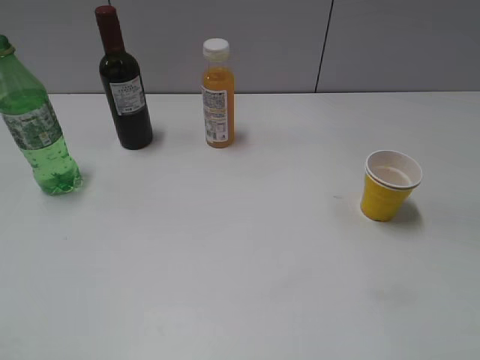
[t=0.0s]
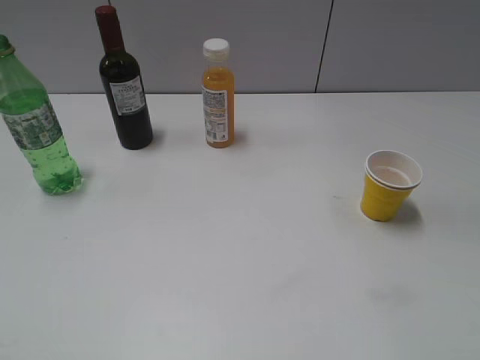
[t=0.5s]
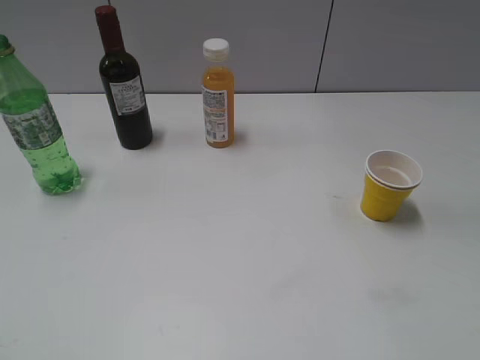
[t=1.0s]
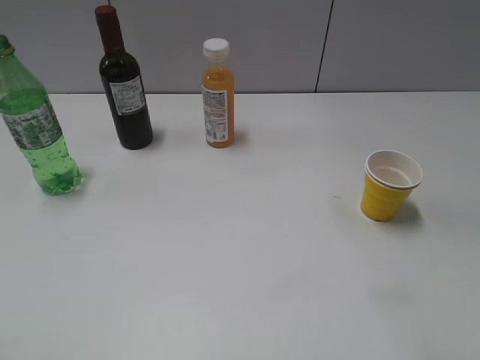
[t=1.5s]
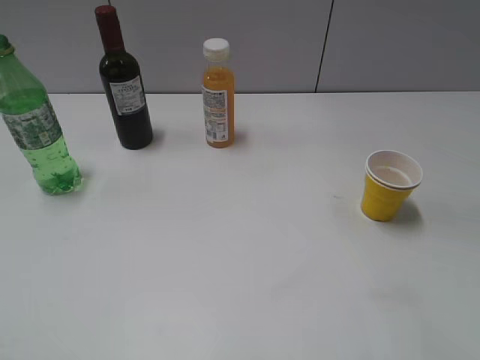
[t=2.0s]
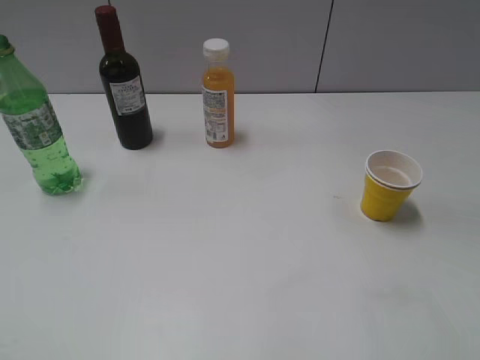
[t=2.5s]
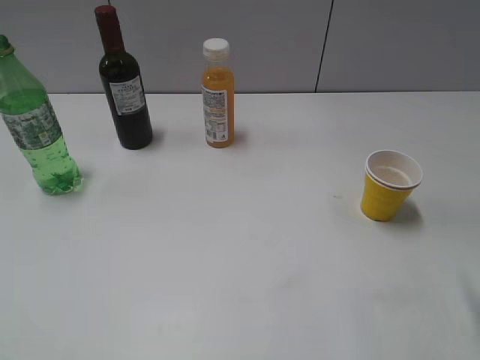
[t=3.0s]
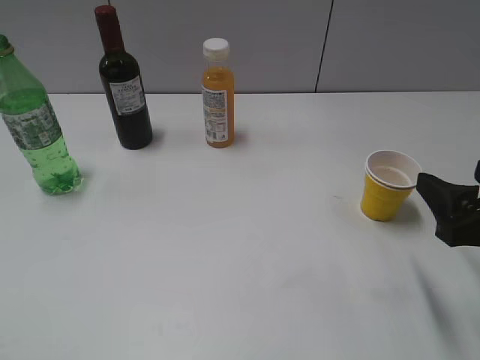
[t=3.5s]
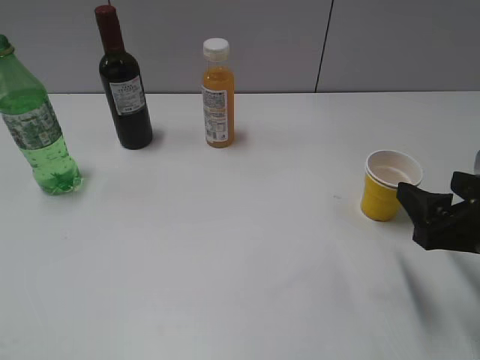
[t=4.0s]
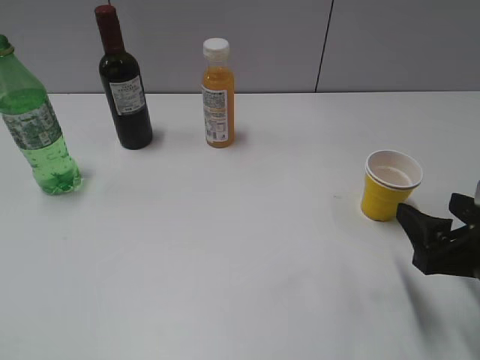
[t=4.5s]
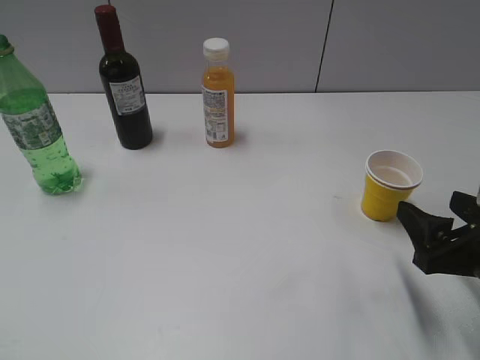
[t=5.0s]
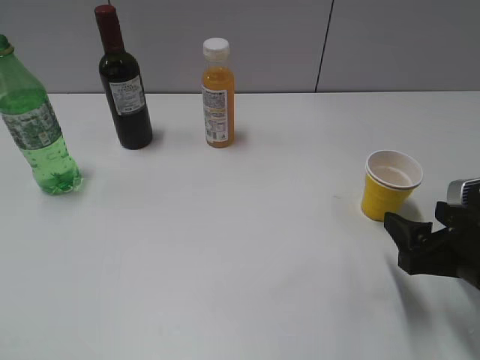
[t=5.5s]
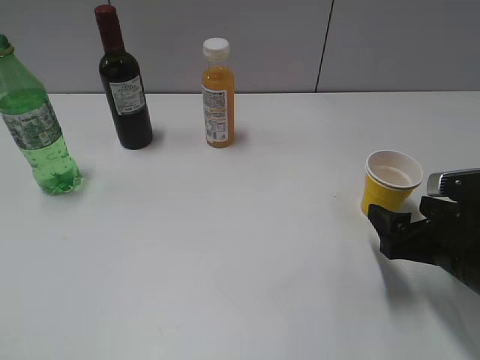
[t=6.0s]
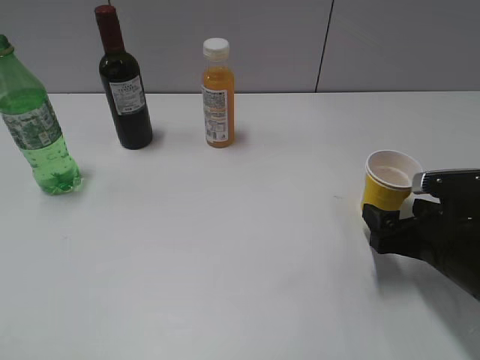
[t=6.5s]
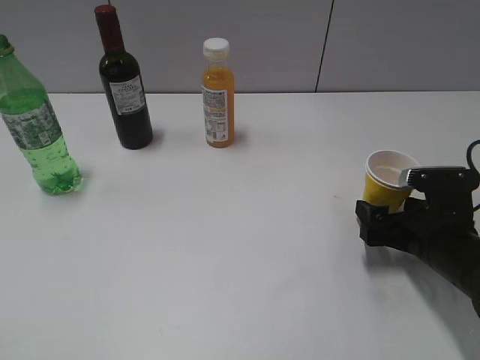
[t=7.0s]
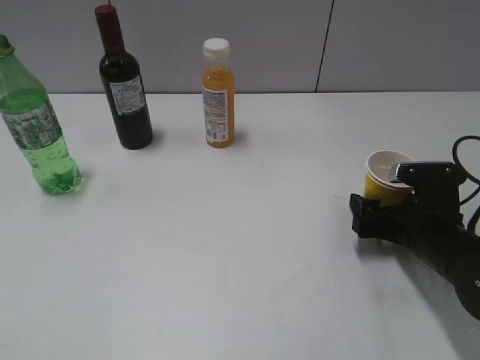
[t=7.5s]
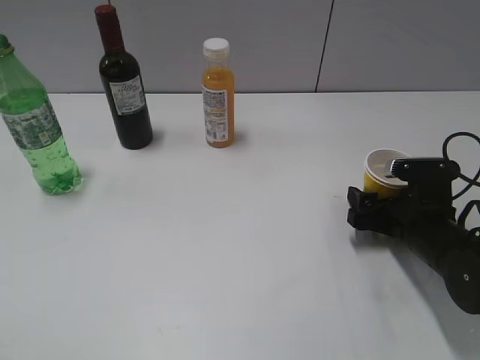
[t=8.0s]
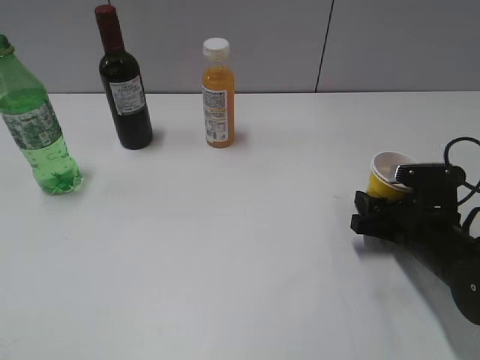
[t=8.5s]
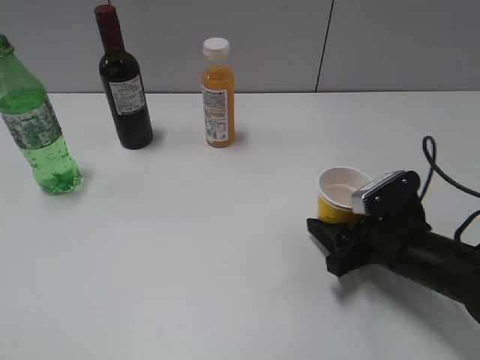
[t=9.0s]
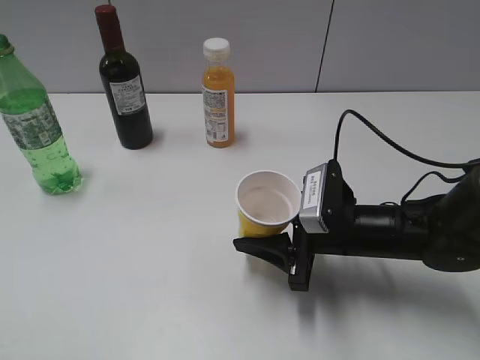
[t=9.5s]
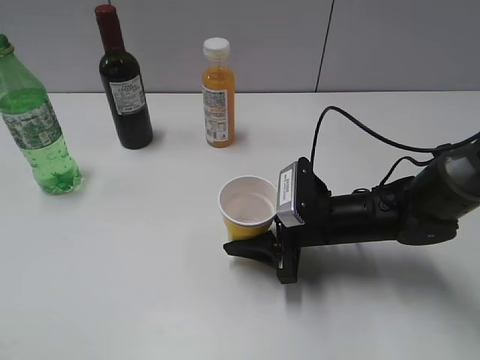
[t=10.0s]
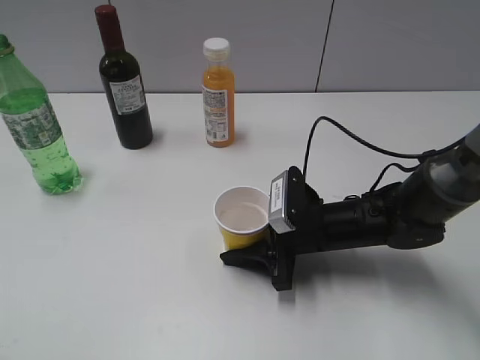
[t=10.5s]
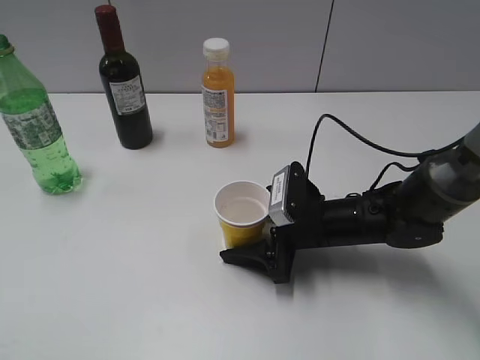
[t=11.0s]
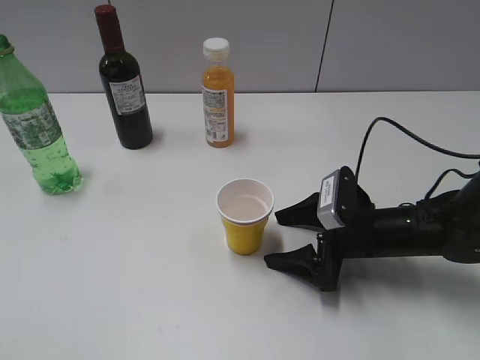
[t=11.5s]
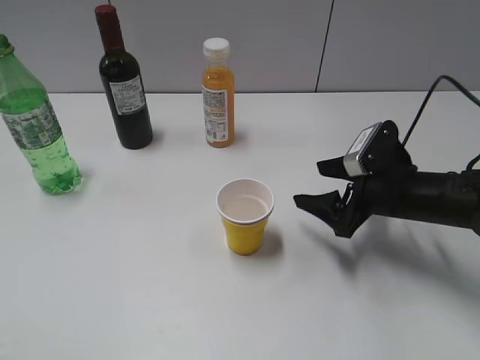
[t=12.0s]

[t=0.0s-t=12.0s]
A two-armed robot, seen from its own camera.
Step, t=1.0s to t=8.0s: Grasp the yellow paper cup with right gripper.
Step, t=8.5s to t=11.0s: Place the yellow paper cup on the table with right gripper.
t=2.0s to t=4.0s: The right gripper heads downward and forward, covering about 15 cm.
t=4.0s to t=6.0s: The right gripper shifts some 5 cm downward.
t=6.0s to t=8.0s: The right gripper heads forward and downward, covering about 10 cm.
t=8.0s to t=10.0s: The right gripper goes approximately 10 cm to the left, and closes up.
t=10.0s to t=12.0s: The right gripper is displaced to the right by approximately 10 cm, and opens.

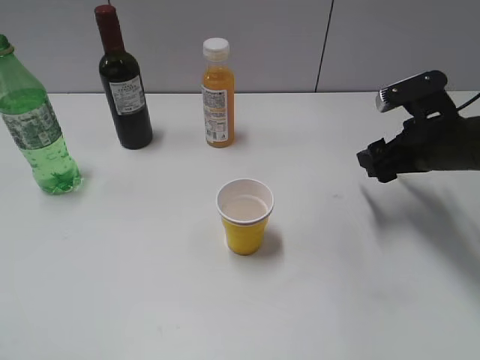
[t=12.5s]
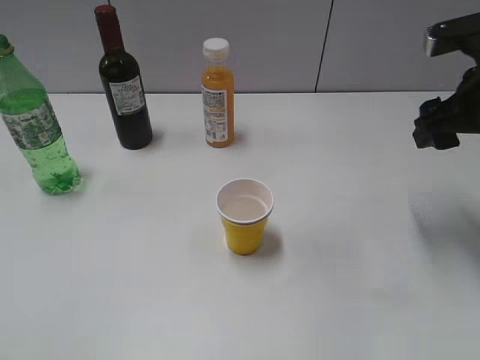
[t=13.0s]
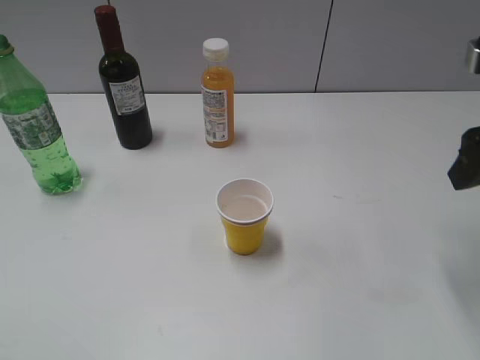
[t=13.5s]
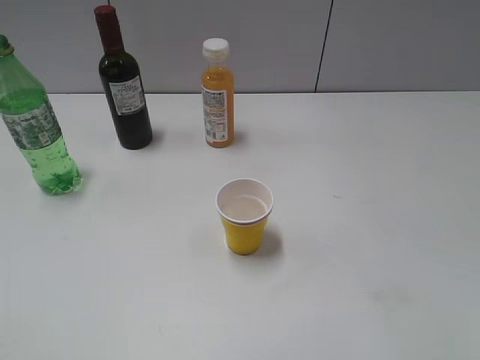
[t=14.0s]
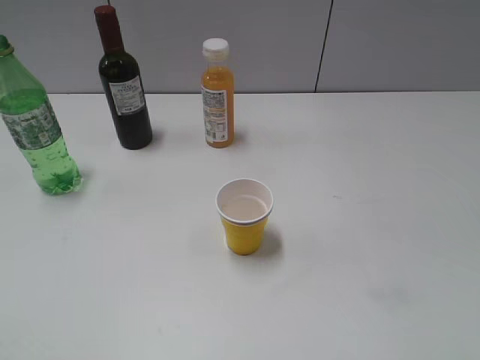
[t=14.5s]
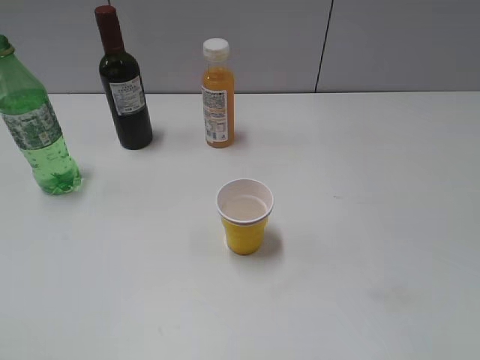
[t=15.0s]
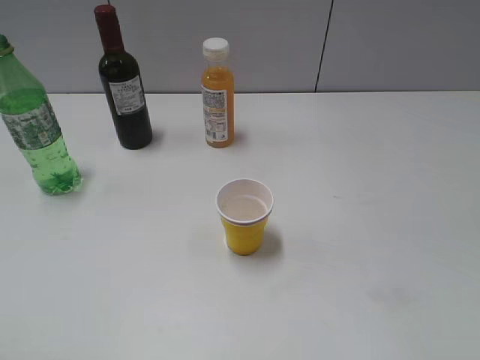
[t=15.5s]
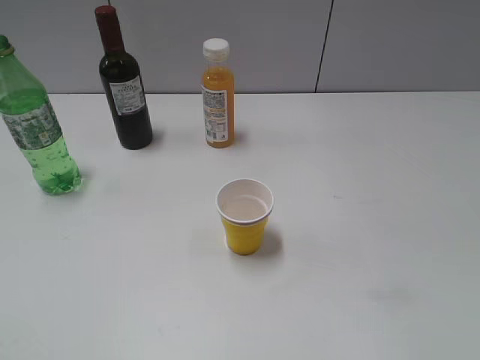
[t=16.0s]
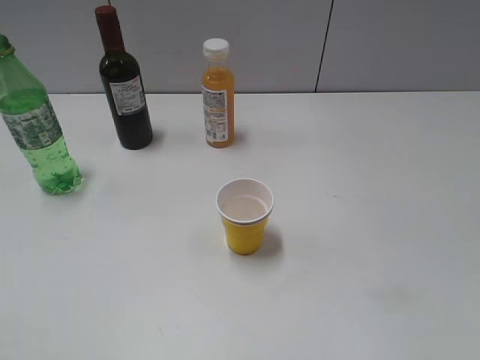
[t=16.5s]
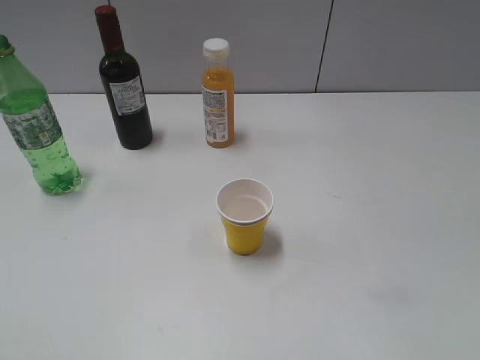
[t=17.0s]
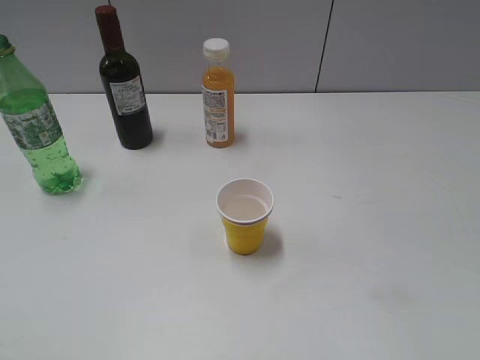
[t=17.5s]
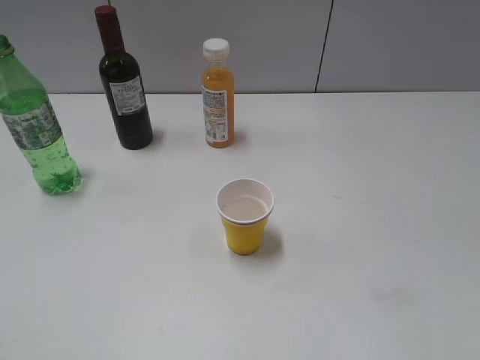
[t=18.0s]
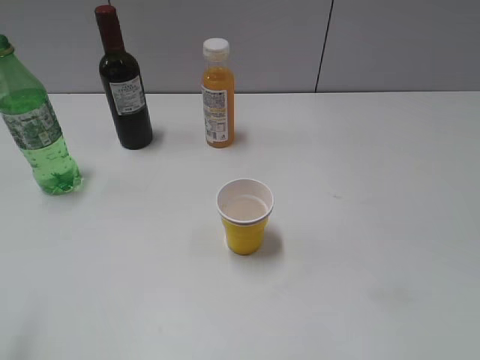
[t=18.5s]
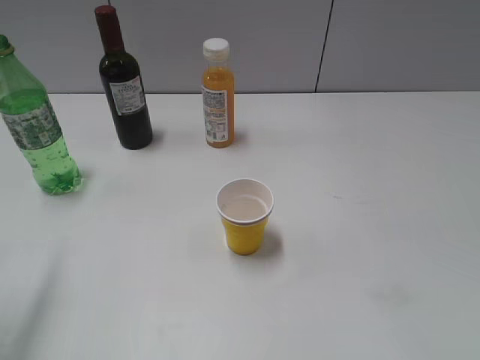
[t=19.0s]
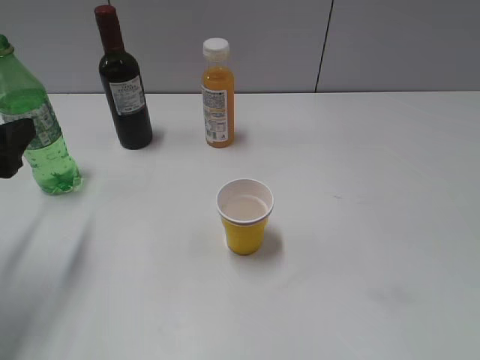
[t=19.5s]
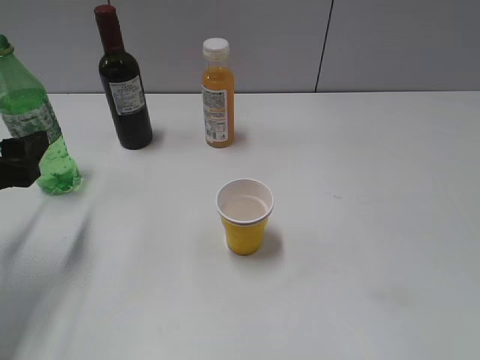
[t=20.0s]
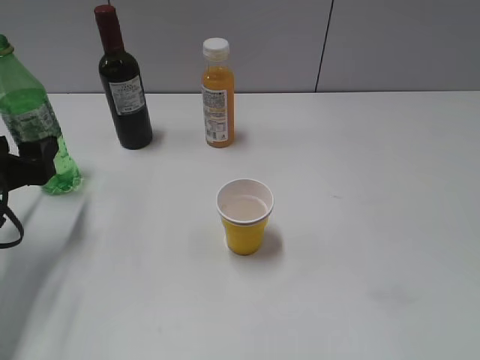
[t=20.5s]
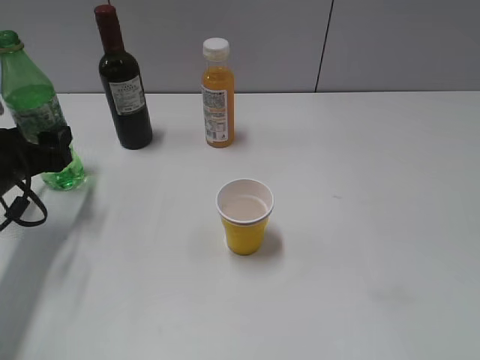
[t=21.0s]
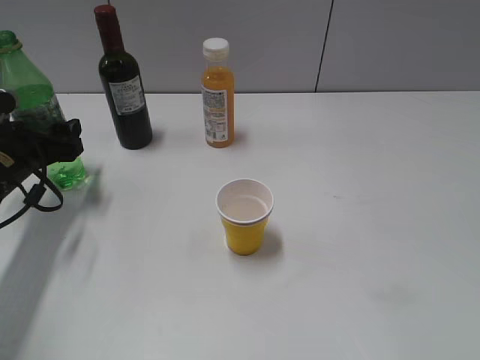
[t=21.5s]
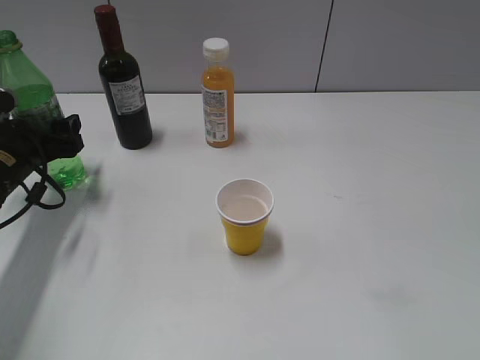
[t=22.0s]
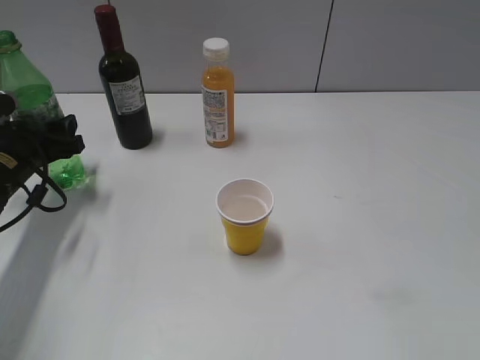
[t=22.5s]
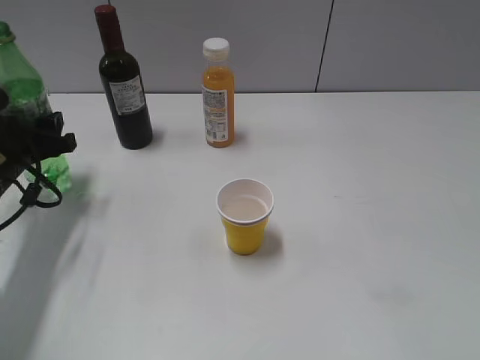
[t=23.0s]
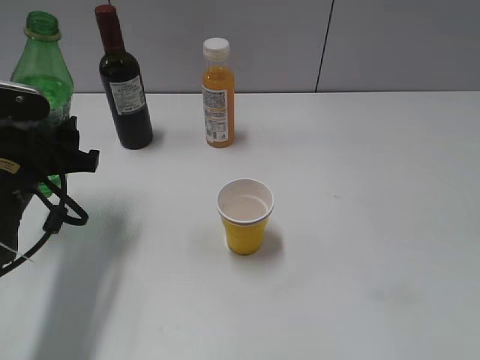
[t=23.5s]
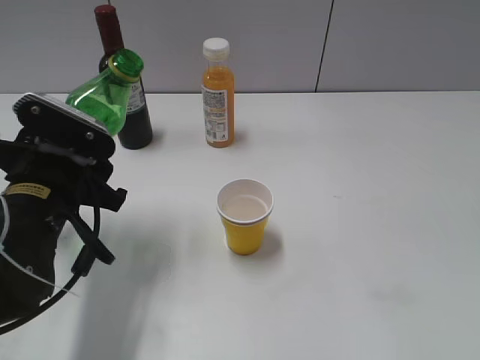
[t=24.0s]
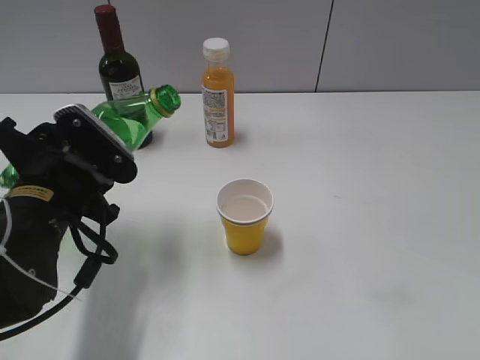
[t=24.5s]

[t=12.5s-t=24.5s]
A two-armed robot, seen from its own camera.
Step, t=12.5s to t=22.5s: Grasp the bottle with sprite with left gripper.
t=12.5s to t=14.5s: The right gripper travels backward and upward by some 30 cm.
t=18.5s to t=20.5s: The left gripper goes some 25 cm forward and downward.
t=20.5s to t=22.5s: The left gripper shifts approximately 5 cm forward, and closes.
t=22.5s to t=24.5s: The left gripper is displaced backward and to the right by approximately 15 cm.

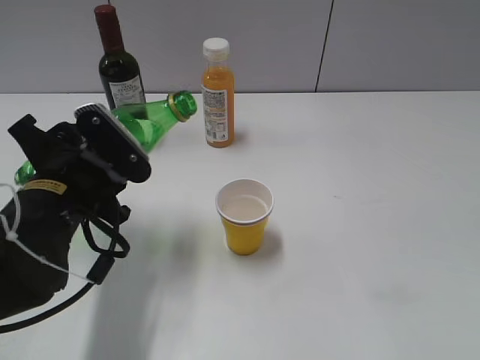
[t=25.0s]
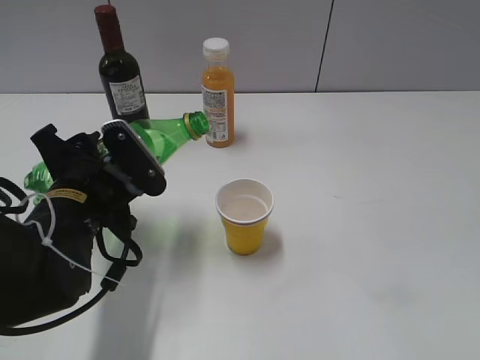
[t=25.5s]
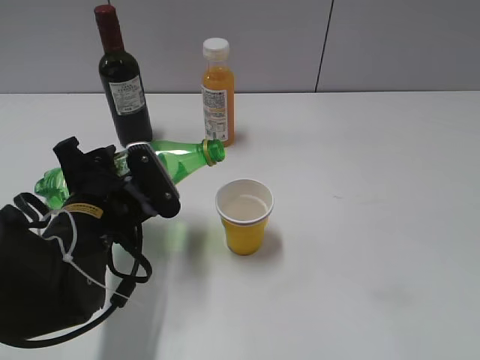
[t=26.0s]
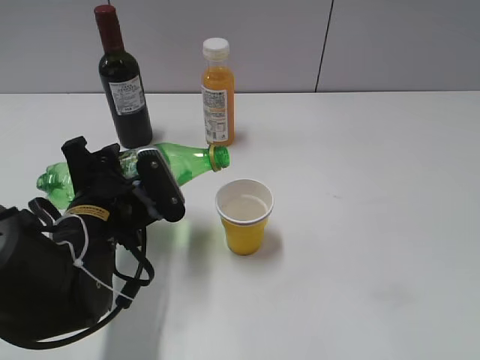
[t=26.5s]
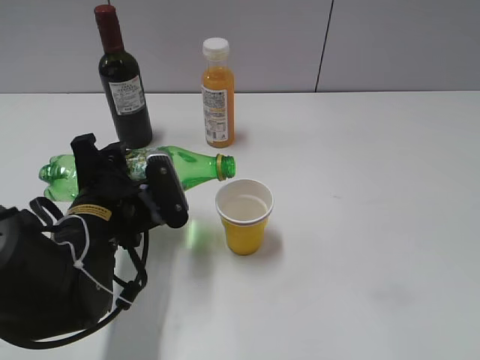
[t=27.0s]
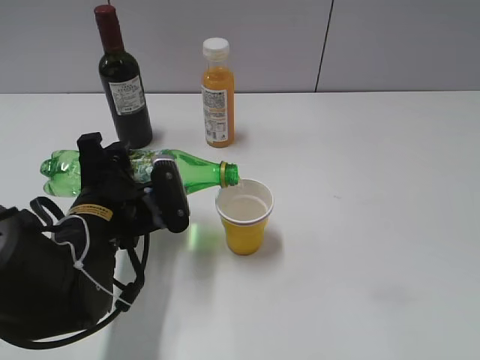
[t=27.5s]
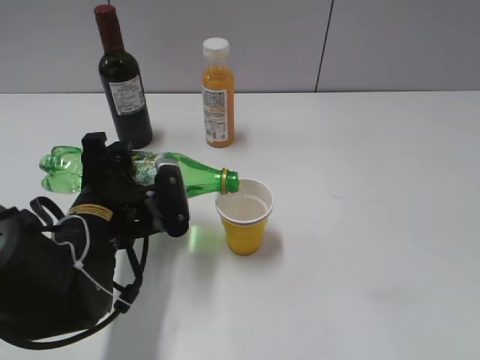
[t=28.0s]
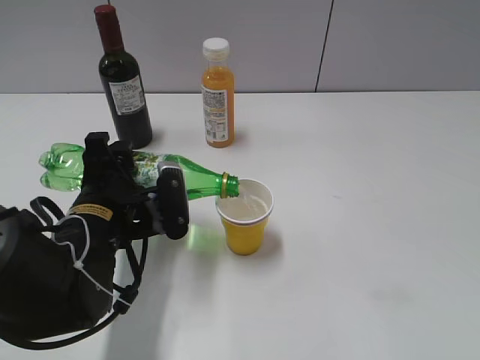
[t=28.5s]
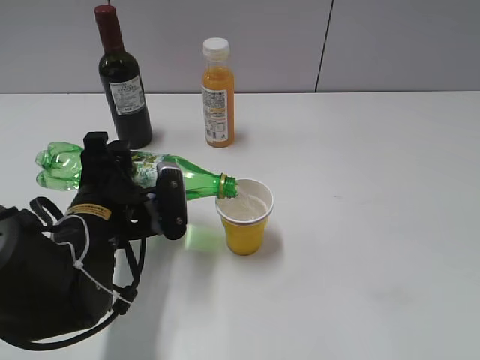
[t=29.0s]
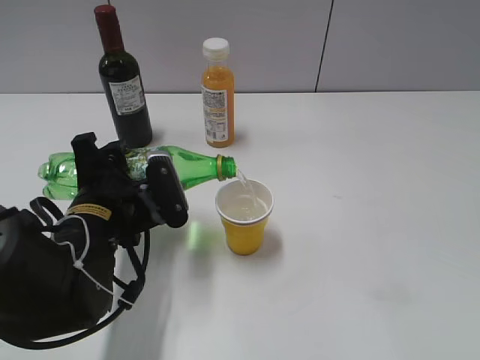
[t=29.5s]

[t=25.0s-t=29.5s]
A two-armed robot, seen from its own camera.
t=27.0s to t=29.5s: The grippers move only a little.
